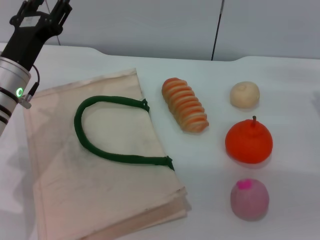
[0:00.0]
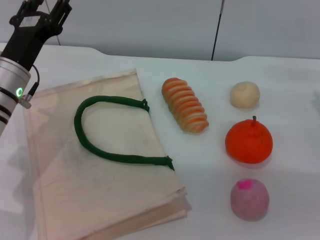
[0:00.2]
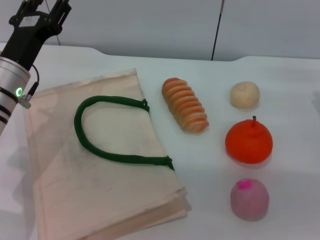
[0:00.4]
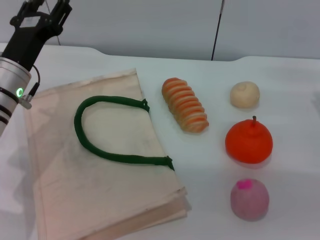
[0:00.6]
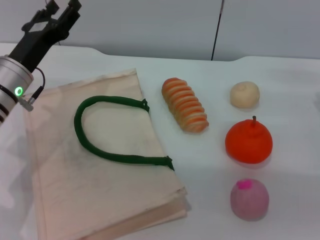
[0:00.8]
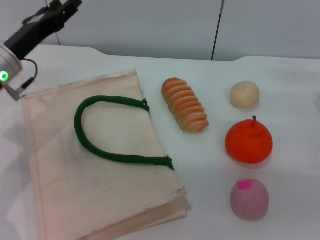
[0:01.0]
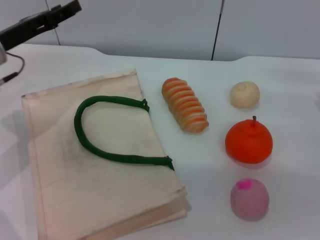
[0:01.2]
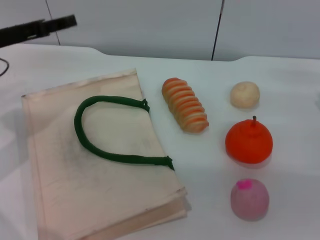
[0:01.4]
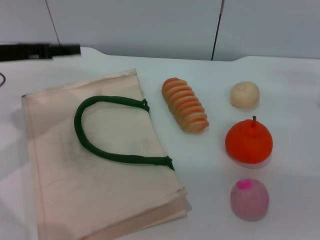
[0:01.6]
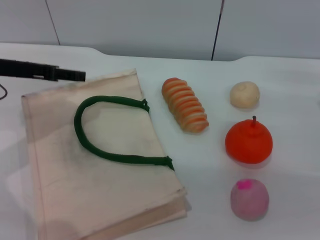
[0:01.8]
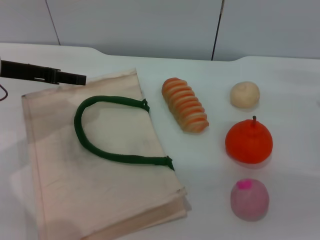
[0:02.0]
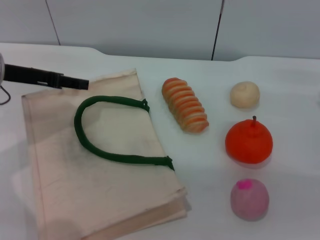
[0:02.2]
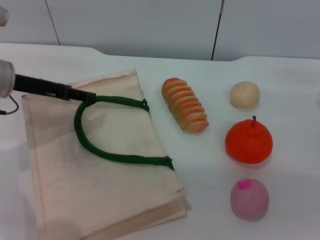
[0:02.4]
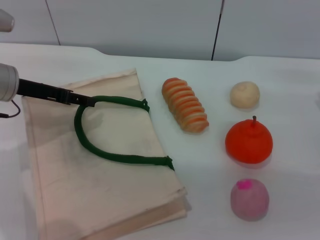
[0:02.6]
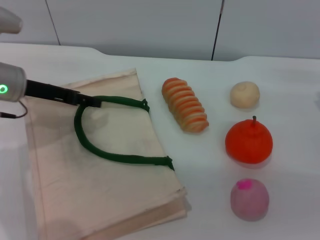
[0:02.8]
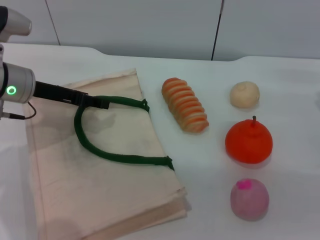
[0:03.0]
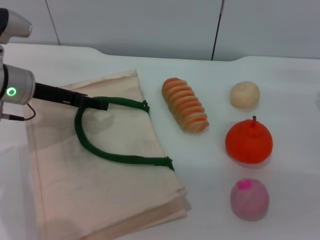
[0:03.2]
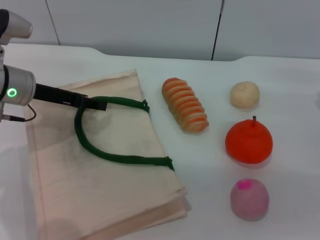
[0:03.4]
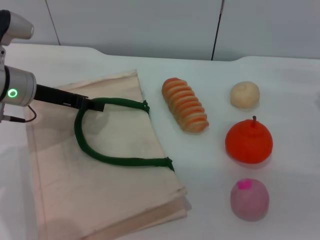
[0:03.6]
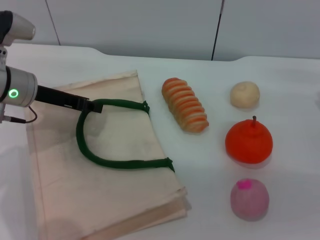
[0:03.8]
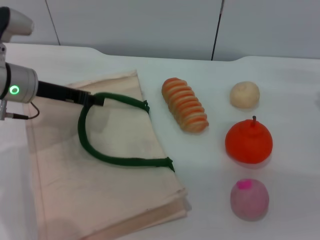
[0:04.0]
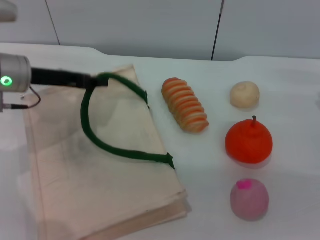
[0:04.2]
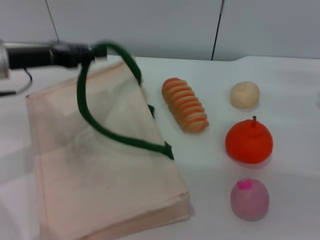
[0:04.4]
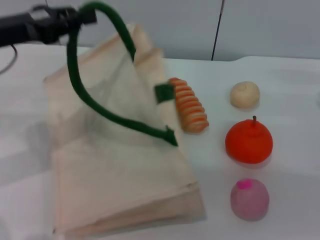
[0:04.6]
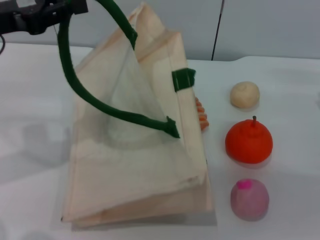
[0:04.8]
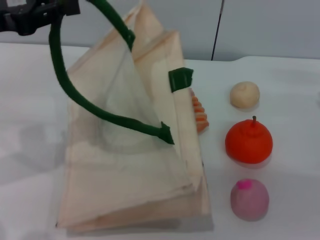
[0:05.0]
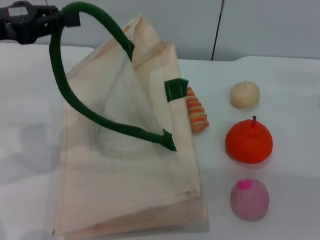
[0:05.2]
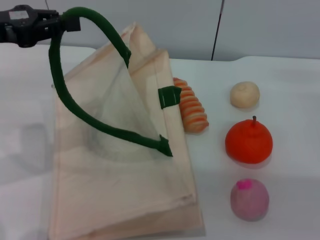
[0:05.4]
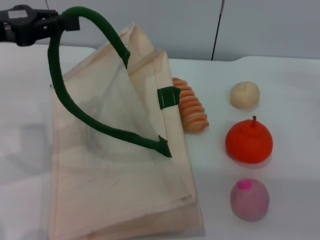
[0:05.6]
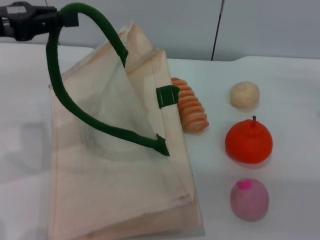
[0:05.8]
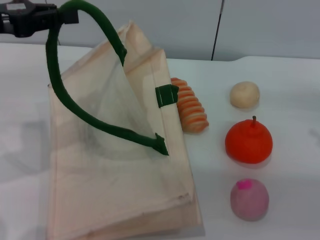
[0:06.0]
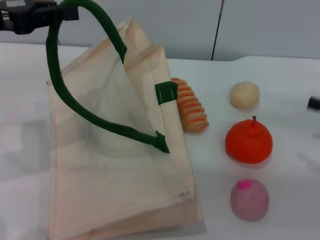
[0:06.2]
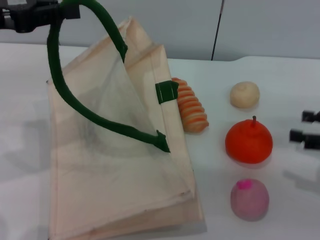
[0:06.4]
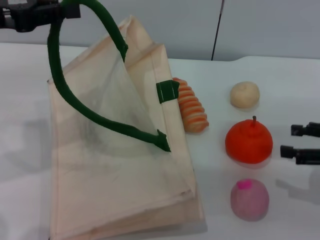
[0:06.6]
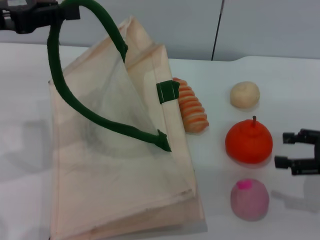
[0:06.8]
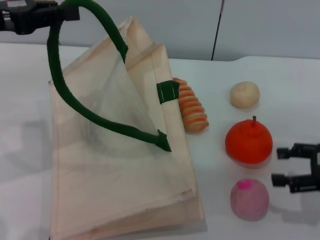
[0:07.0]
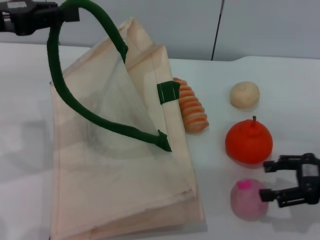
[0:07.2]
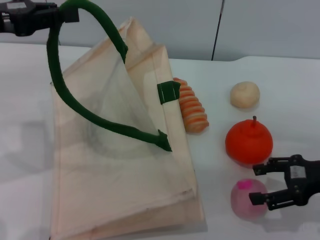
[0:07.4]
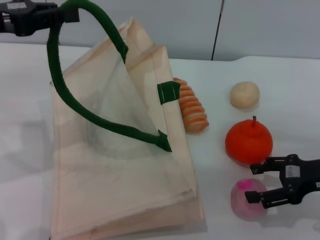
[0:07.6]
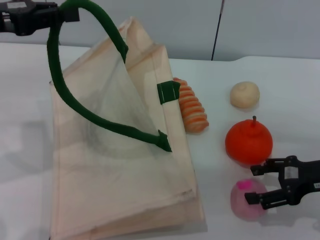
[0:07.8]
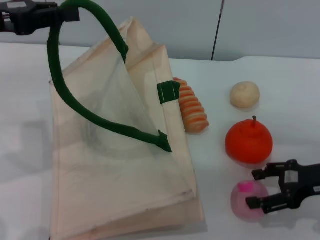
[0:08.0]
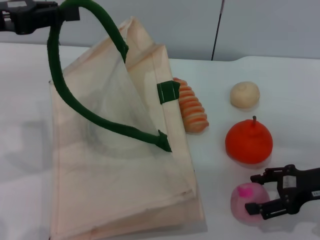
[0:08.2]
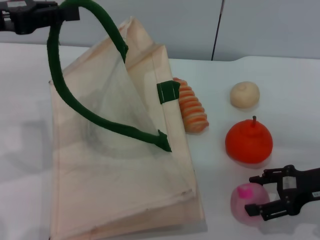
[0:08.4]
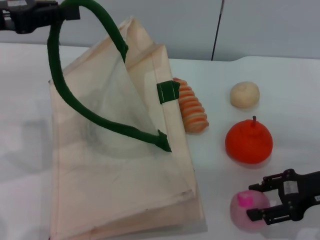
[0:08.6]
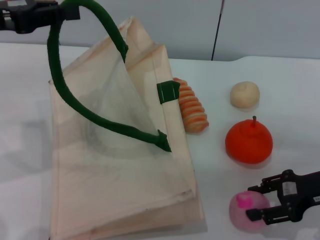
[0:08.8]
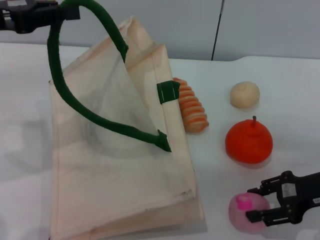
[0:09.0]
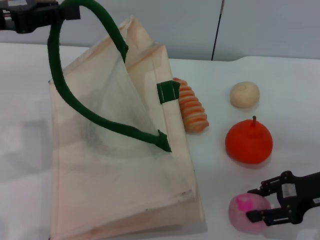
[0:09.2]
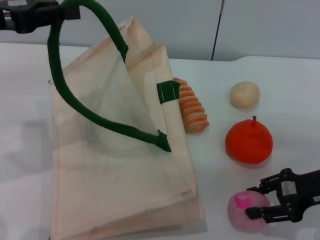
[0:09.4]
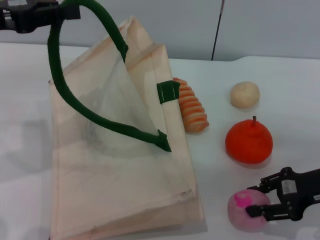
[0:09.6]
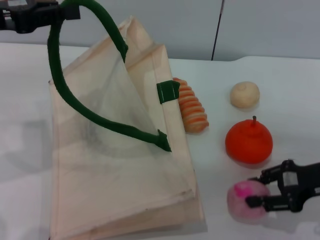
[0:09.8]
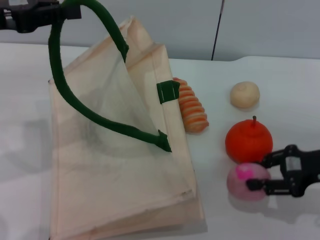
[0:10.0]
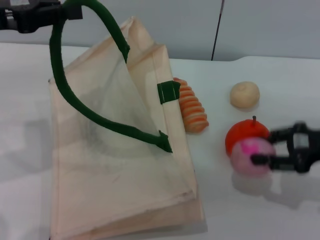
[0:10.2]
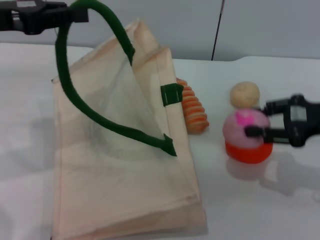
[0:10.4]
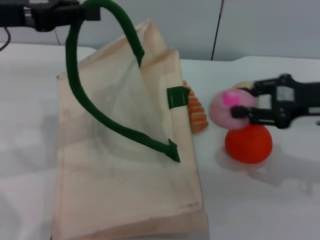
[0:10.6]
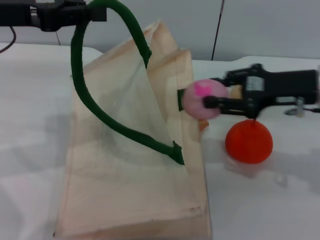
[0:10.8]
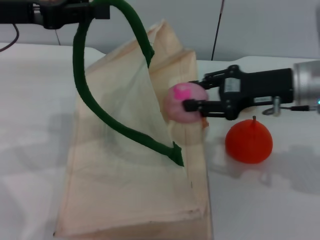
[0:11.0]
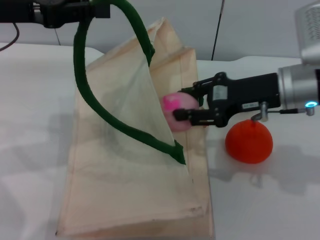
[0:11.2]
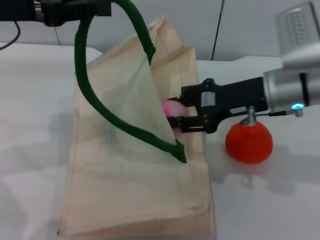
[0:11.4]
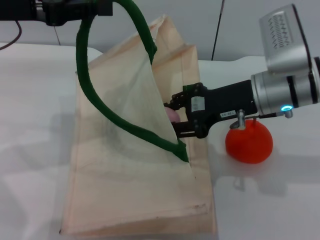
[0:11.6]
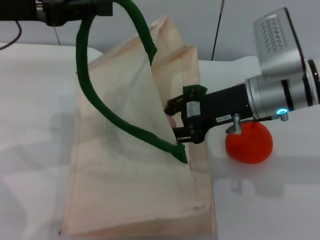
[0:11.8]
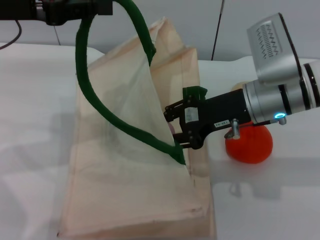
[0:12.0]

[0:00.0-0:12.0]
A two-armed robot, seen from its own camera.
Task of the whole recording: pick up the peach from the table and place it in the white handbag.
Step, 0:00.0 to 0:04.8: Lift the woven bag with the left gripper to open it.
Step, 0:05.0 to 0:10.2: Pick up the peach with the right gripper.
0:00.0 to 0:01.6: The left gripper shifts about 10 cm upward and to the left.
0:01.6 to 0:03.0: The left gripper changes place by approximately 5 cm.
0:03.0 to 0:04.4: The left gripper closes its fingers.
0:04.4 to 0:06.0: The right gripper shifts some 5 cm to the right. The left gripper goes approximately 5 cm upward.
0:06.0 to 0:07.6: The right gripper is displaced to the left by approximately 10 cm.
0:07.6 to 0:09.0: The right gripper closes up.
0:09.0 to 0:10.4: The right gripper is displaced upward by about 5 cm, and closes up.
0:10.4 to 0:12.0: The right gripper shifts some 15 cm to the left.

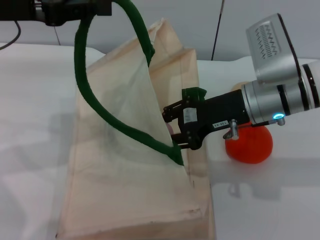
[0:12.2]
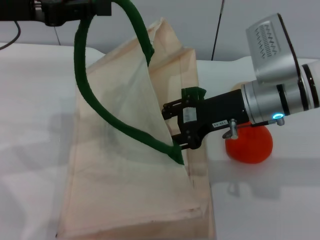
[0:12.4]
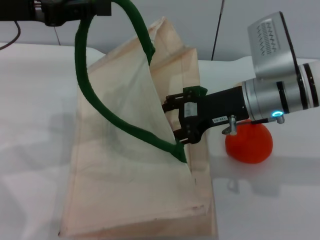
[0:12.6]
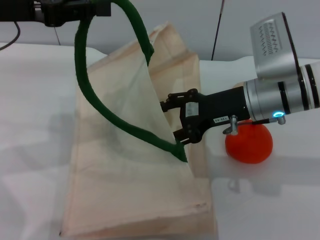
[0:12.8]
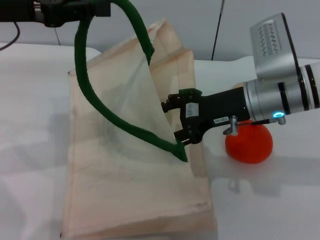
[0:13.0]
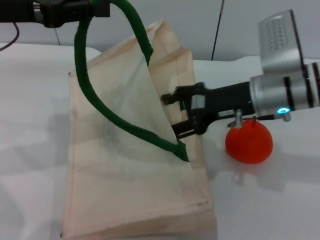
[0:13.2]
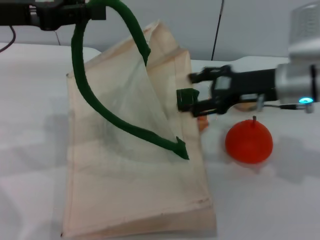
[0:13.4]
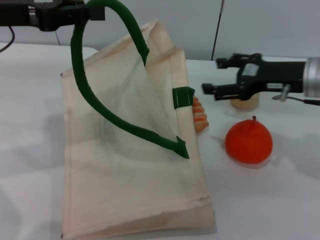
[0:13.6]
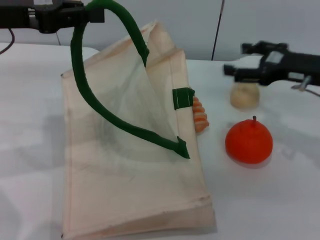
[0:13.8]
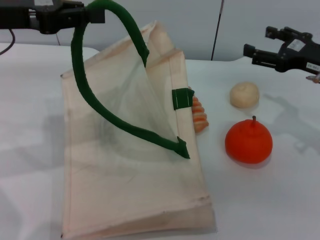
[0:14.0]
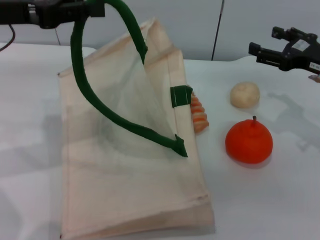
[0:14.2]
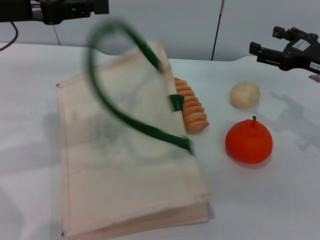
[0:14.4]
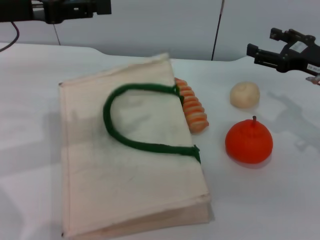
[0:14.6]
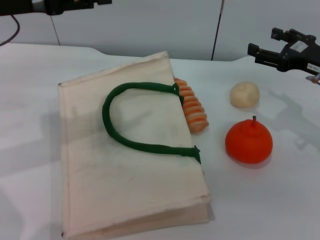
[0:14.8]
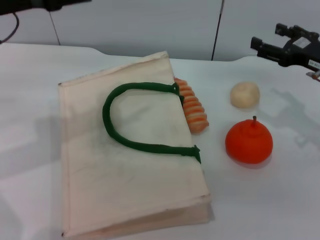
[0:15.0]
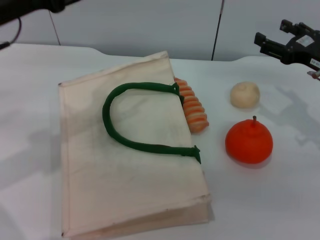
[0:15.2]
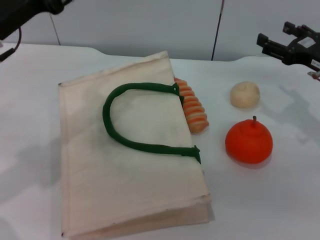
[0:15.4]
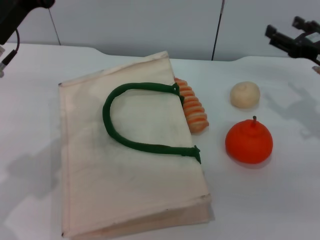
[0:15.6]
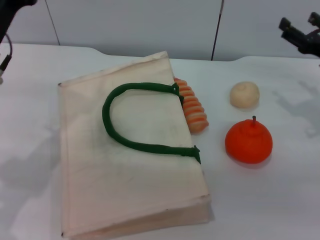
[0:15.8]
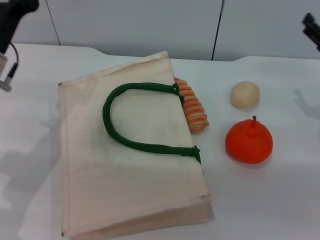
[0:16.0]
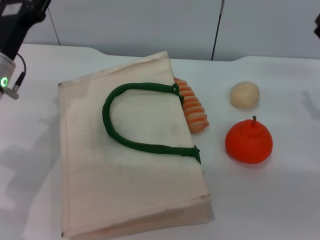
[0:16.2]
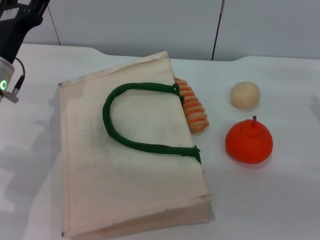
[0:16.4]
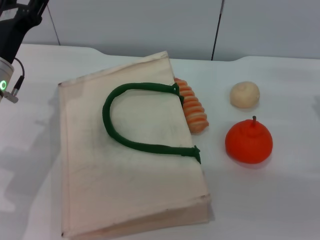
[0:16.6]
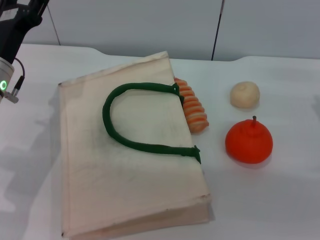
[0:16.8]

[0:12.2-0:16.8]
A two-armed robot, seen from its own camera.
Task of the whole recording: pick up the peach from the table and place it in the white handbag.
0:12.2 to 0:13.8: The right gripper moves to the right, some 10 cm, and opens its fingers.
0:13.8 to 0:15.2: The left gripper opens its fingers.
0:15.2 to 0:16.8: The right gripper changes place by some 5 cm. The left gripper heads downward, covering roughly 10 cm.

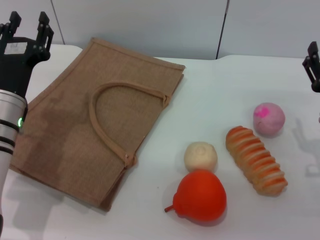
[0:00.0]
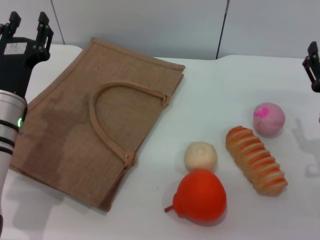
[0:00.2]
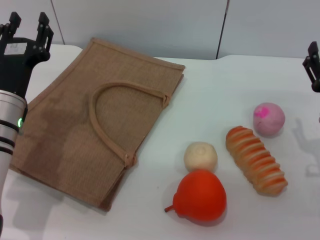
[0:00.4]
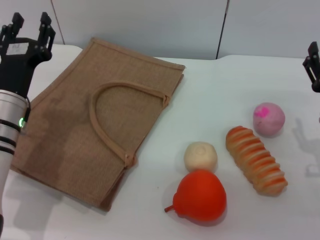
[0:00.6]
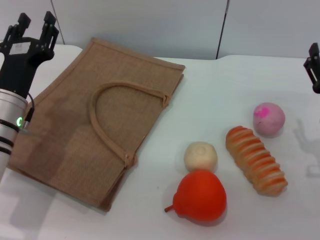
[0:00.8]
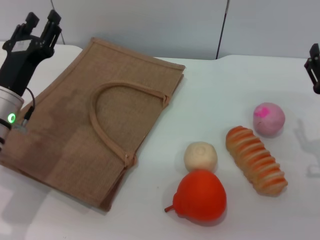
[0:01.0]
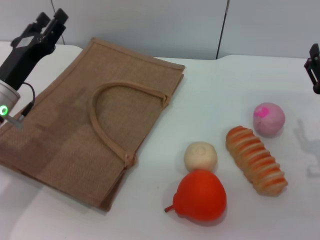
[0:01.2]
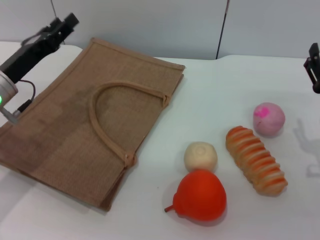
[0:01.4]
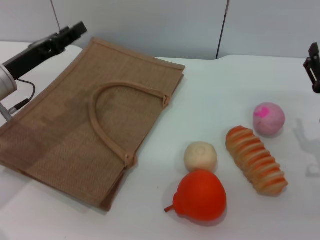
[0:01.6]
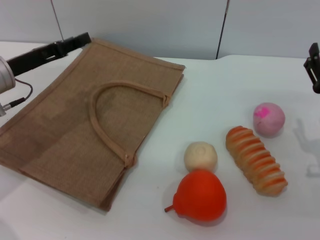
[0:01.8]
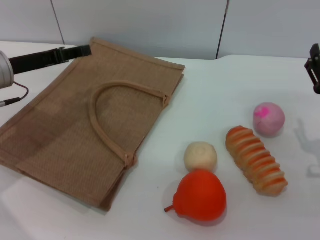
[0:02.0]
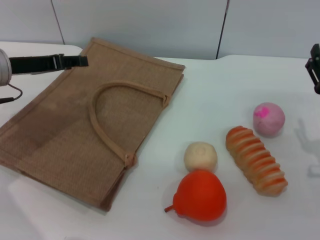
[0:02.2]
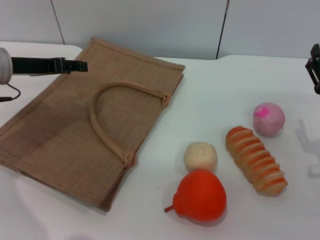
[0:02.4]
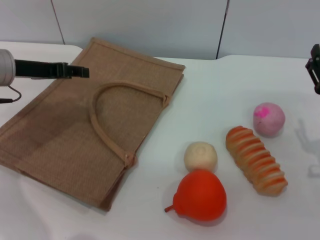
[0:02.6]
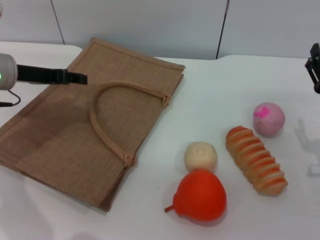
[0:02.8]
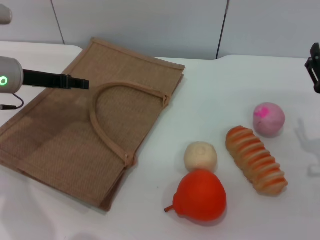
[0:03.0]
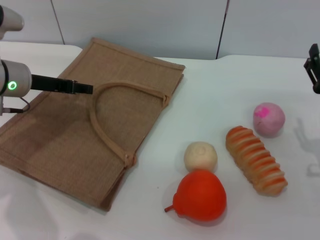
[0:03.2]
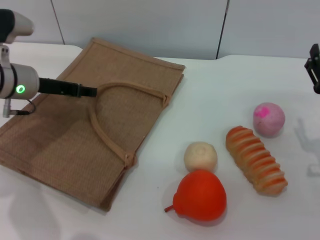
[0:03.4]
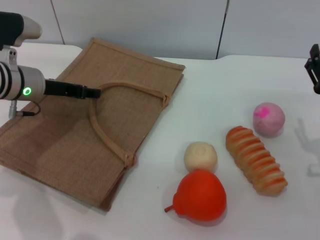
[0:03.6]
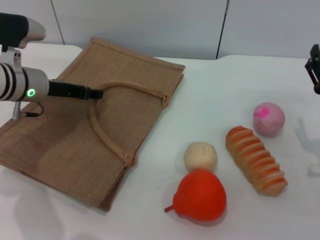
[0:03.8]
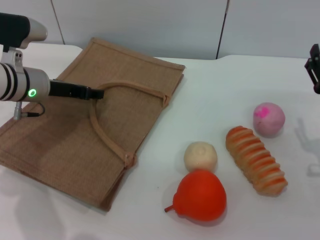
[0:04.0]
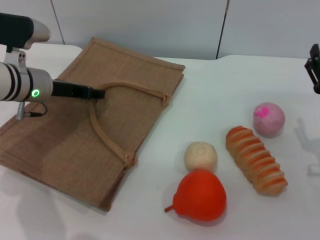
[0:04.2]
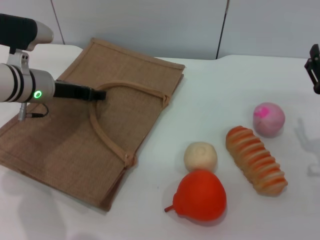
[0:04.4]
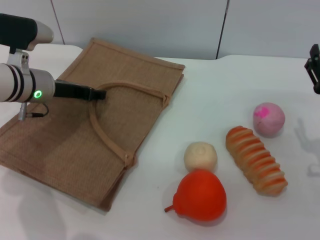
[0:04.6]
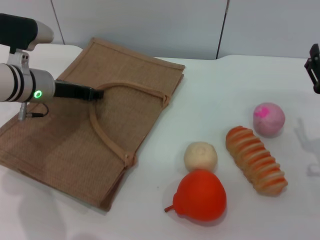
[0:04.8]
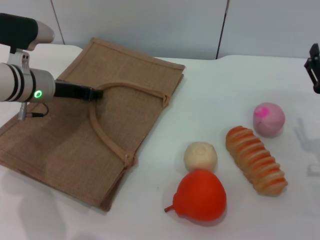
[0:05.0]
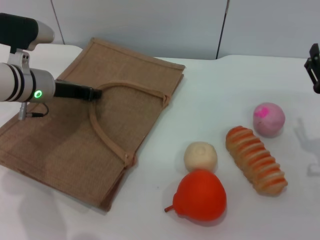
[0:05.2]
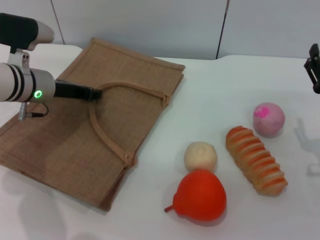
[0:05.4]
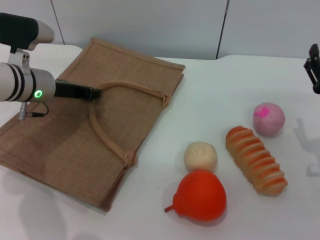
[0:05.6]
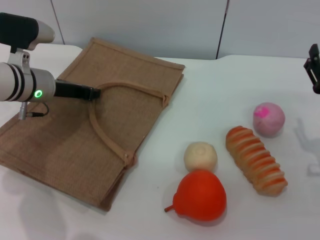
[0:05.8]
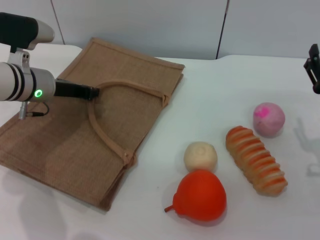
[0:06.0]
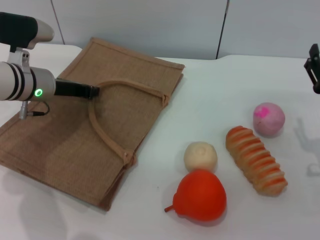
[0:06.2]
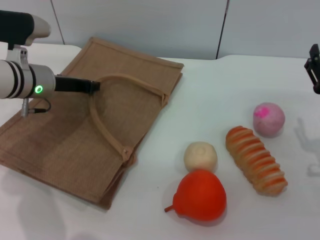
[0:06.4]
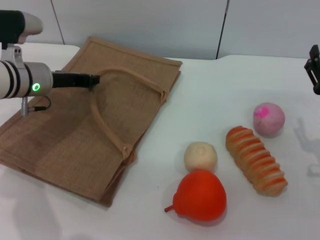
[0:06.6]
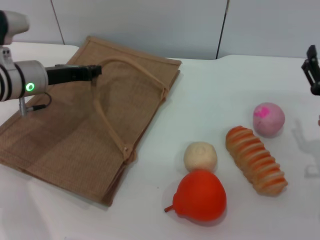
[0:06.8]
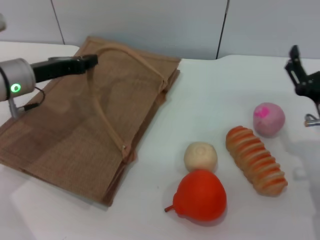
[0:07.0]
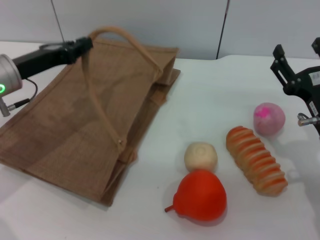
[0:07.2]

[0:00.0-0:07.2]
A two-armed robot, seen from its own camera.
Task of the whole recording: pick up the bread from the table and place it in the brown handbag.
0:00.0 to 0:01.4: The left gripper ends up approximately 5 cm from where it was.
0:01.4 to 0:02.8: The left gripper shifts by about 5 cm.
0:02.8 to 0:04.4: The left gripper changes place by about 5 cm.
0:04.4 to 0:05.8: The left gripper closes its fingers.
0:05.8 to 0:07.2: The left gripper changes place by about 5 cm.
